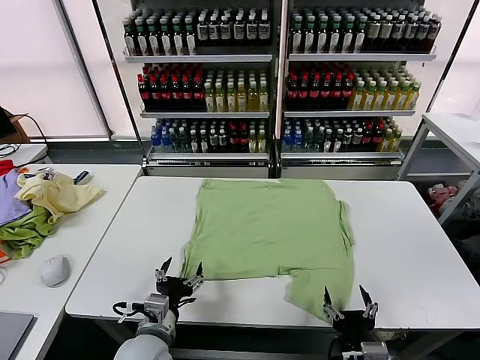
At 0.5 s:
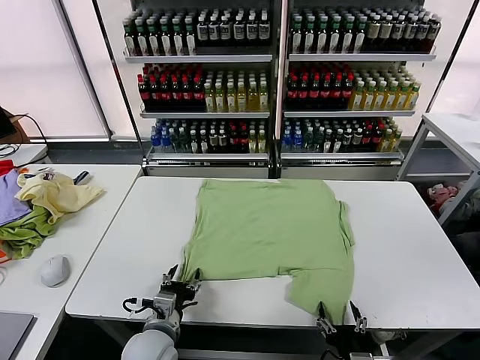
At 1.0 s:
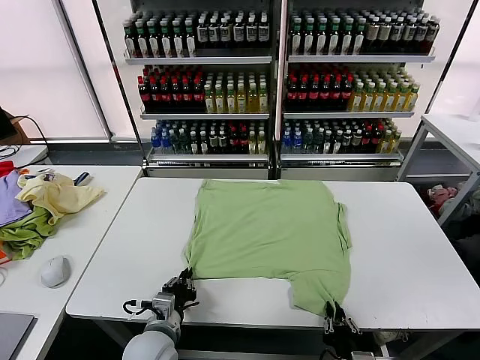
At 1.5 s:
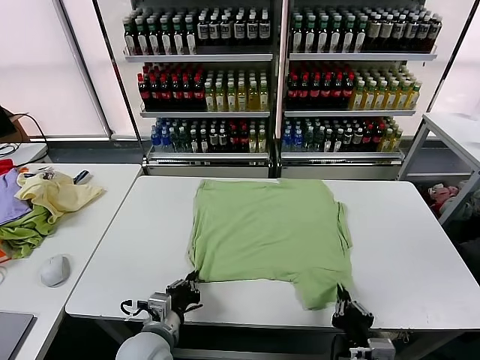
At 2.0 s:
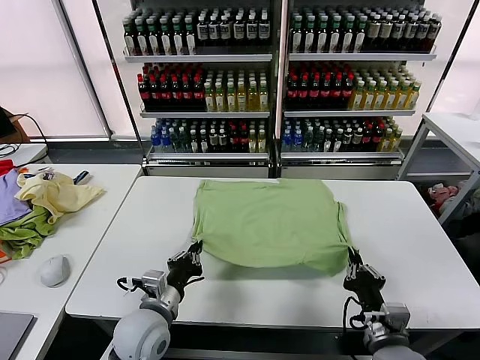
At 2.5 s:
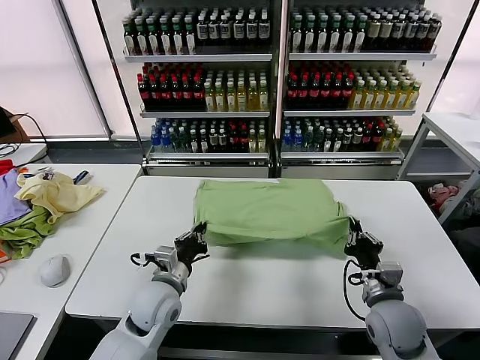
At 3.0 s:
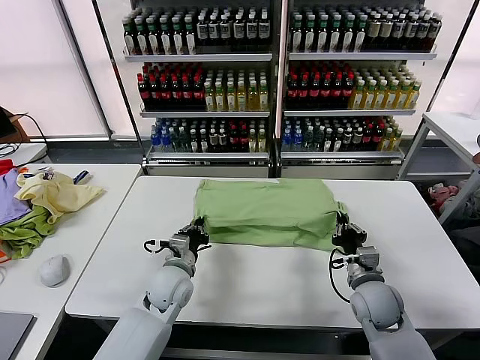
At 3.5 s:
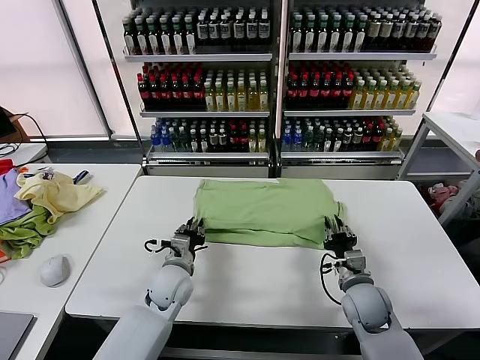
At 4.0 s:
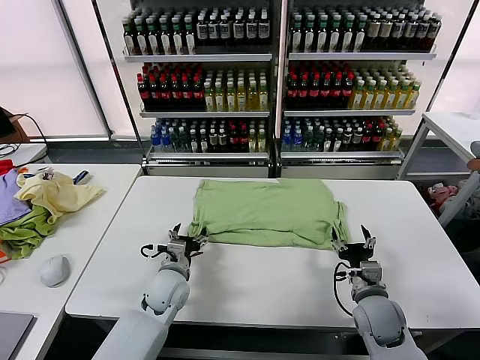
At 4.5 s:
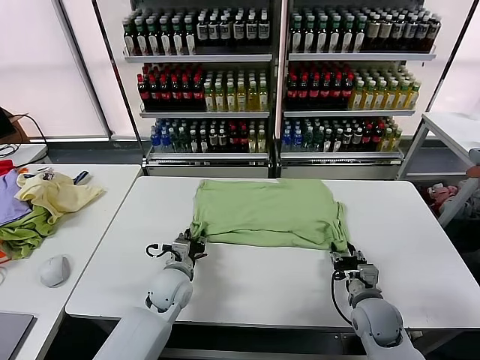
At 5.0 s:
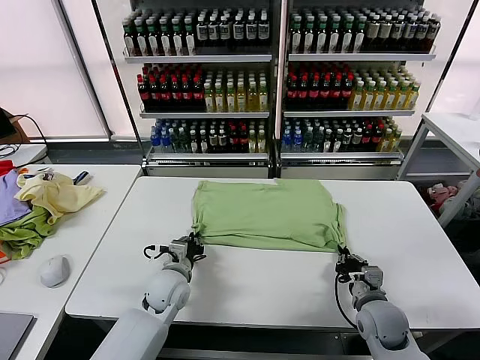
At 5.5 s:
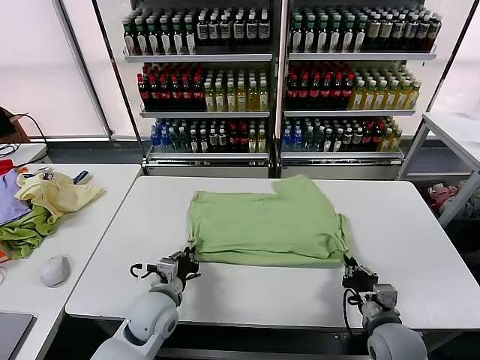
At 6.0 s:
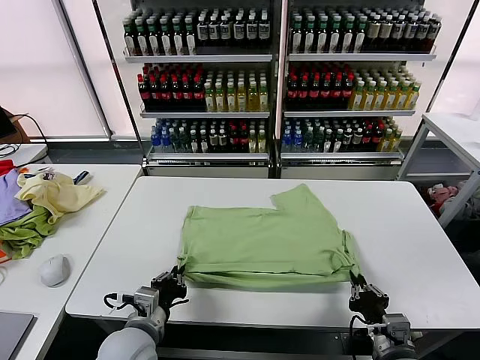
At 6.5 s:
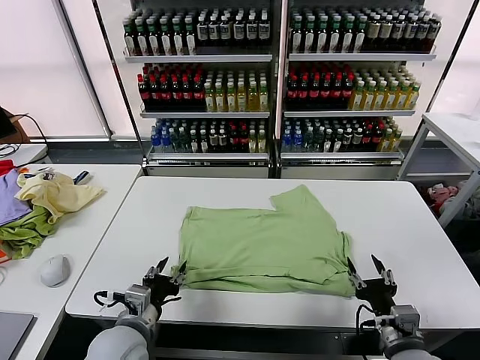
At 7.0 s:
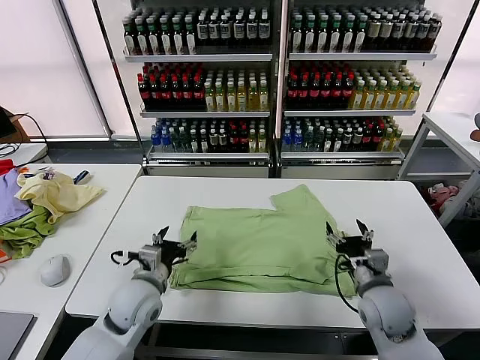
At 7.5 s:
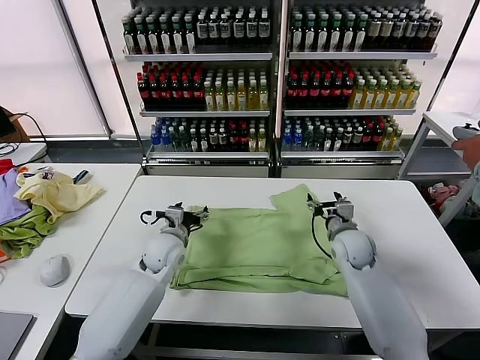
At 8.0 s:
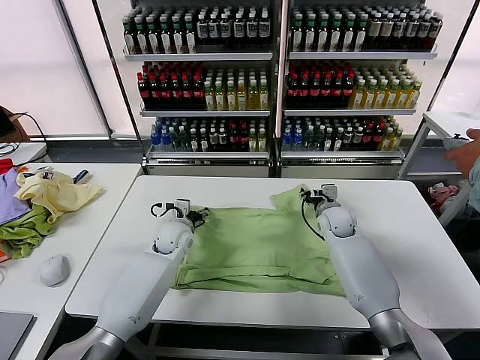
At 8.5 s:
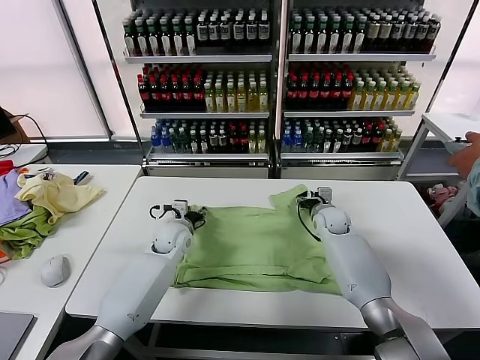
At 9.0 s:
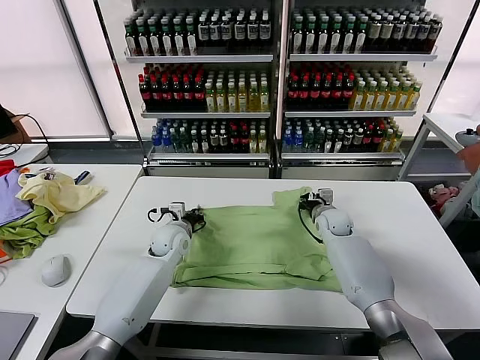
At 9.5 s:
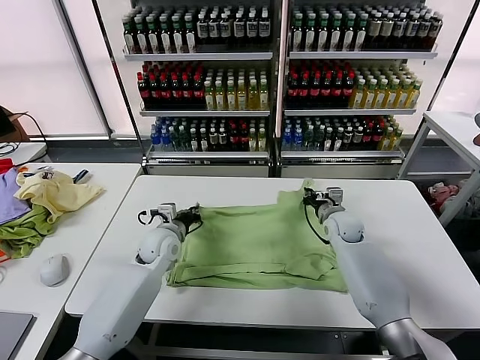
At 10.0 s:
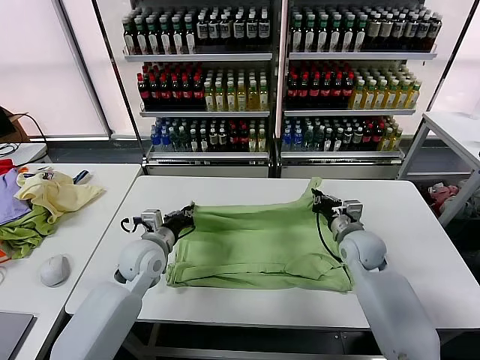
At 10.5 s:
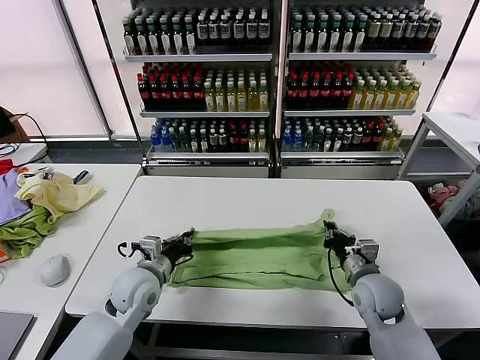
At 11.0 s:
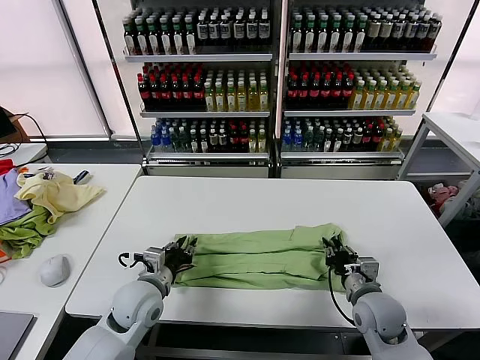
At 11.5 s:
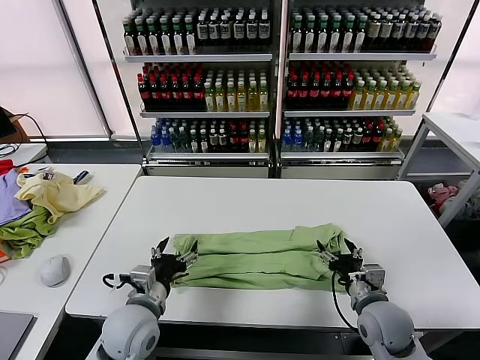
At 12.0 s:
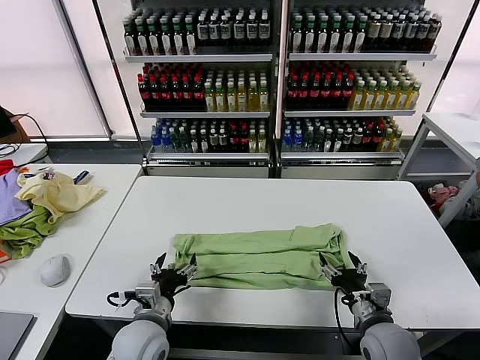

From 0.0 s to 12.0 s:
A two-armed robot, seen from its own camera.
Task of the whole recording: fold and organize the clothes.
Step, from 0.0 s to 1.0 s: use both grippers simultaneously to clamp the lower edge of the clothing fabric.
Step, from 1.5 s to 3.5 s: use both grippers to drag the lower edge of the fabric forward and fold it over the upper edge.
Step, from 4.0 s to 6.0 s: Drag the clothes downward with both gripper.
Step, from 7.0 s to 9.0 s: use both grippers simultaneously to clamp the upper edge of the clothing fabric.
Step, from 9.5 s to 11.0 s: use both grippers to drag the upper edge of the fabric backward and fold it over the lower edge.
From 2.0 s to 4.0 s: Both grippers move forward and downward, some 10 cm. The left gripper opens its fingers. The right gripper opens its fingers.
From 4.0 s to 6.0 s: The grippers both shift backward by roughly 15 cm. The left gripper closes. Meanwhile the right gripper closes up.
From 6.0 s to 8.0 s: Both grippers travel together forward, approximately 35 cm. The left gripper opens its fingers. The right gripper opens.
From 8.0 s to 10.0 s: The two grippers go approximately 10 cm backward. The right gripper closes; the left gripper closes its fingers.
From 10.0 s to 12.0 s: The two grippers go roughly 15 cm backward. The right gripper opens up, while the left gripper opens its fingers.

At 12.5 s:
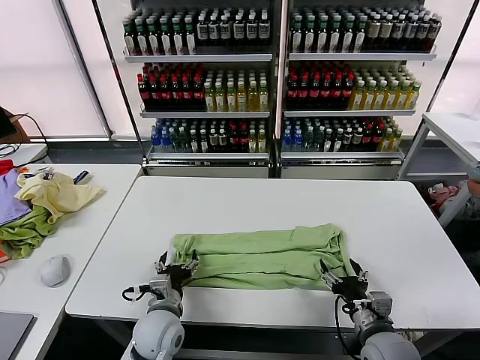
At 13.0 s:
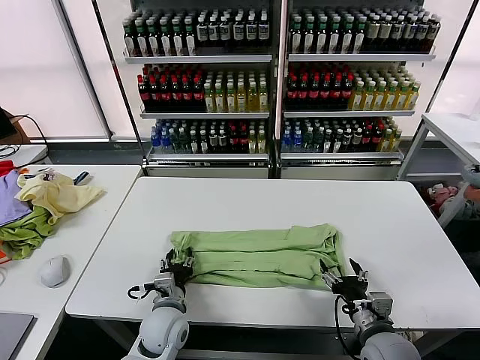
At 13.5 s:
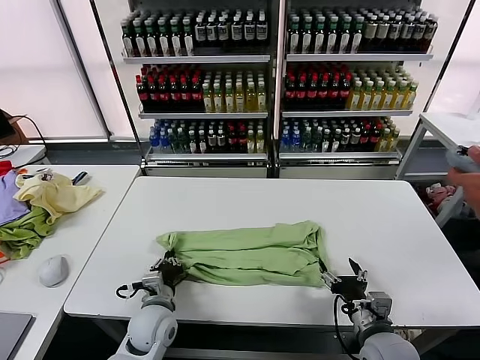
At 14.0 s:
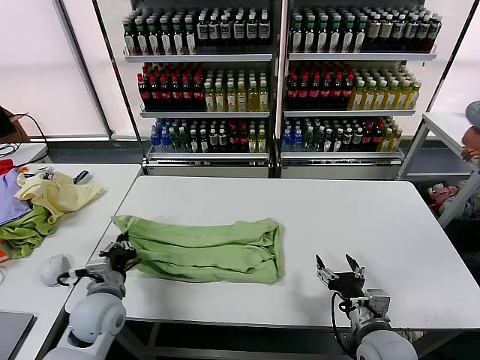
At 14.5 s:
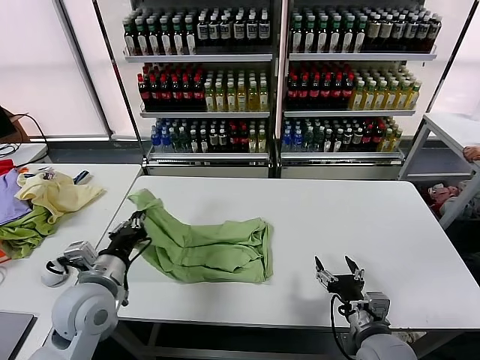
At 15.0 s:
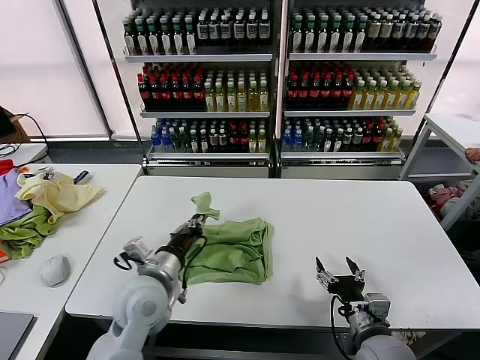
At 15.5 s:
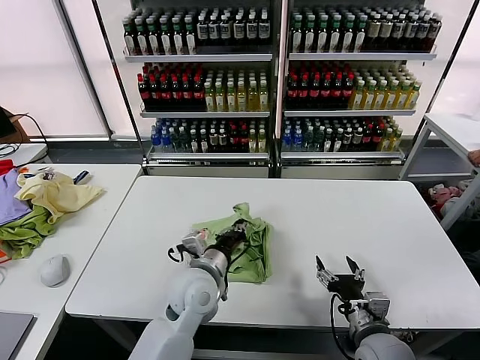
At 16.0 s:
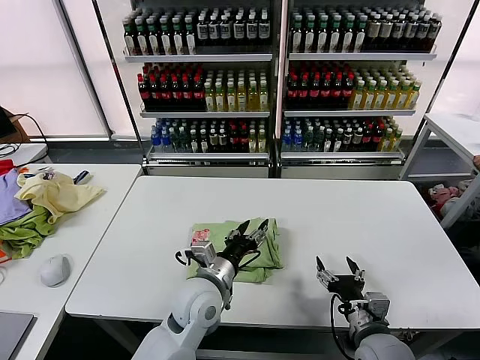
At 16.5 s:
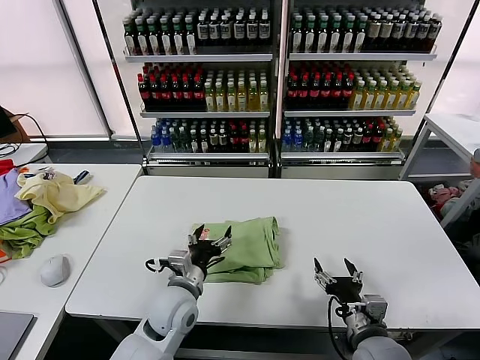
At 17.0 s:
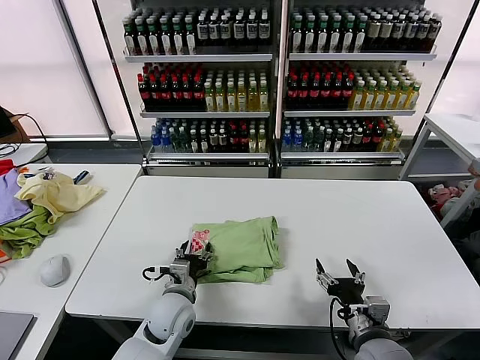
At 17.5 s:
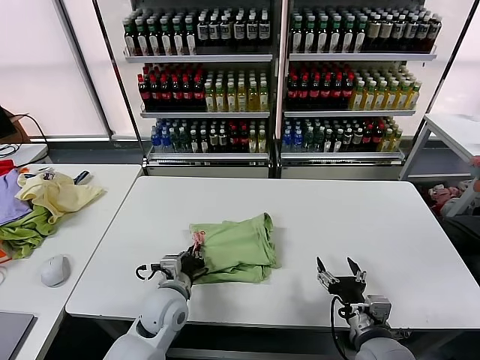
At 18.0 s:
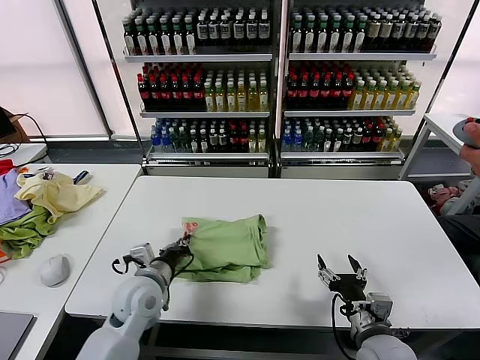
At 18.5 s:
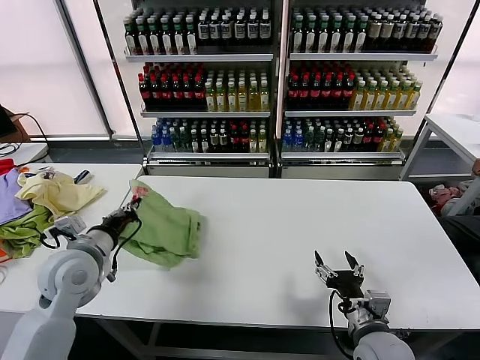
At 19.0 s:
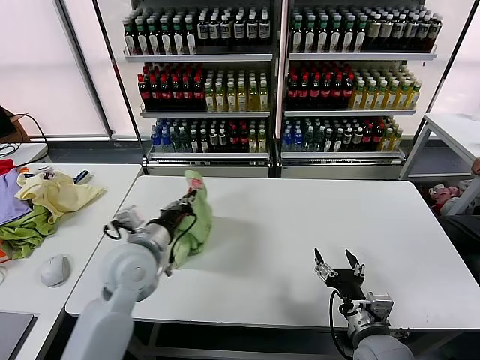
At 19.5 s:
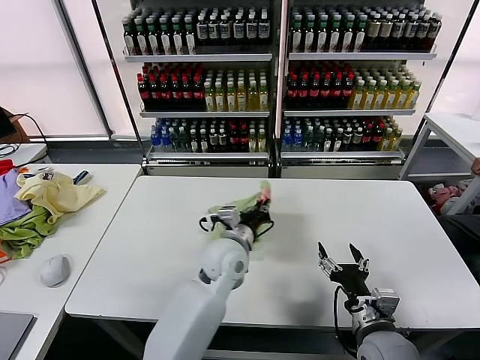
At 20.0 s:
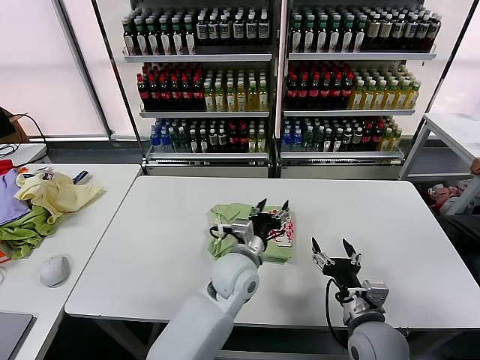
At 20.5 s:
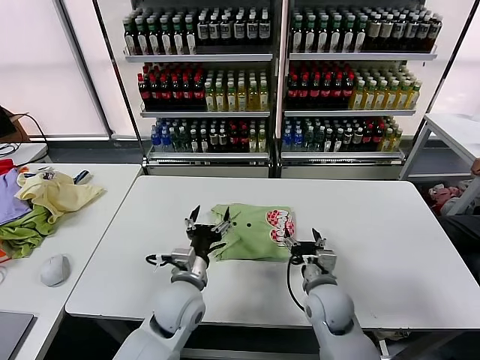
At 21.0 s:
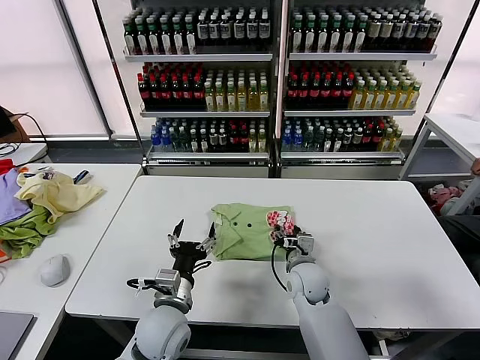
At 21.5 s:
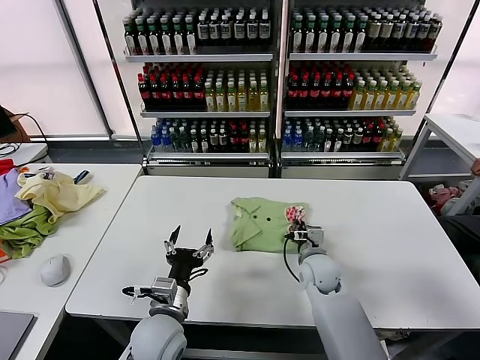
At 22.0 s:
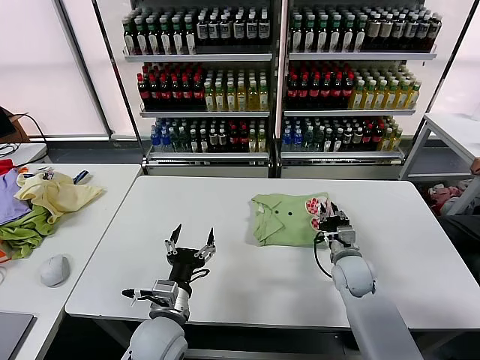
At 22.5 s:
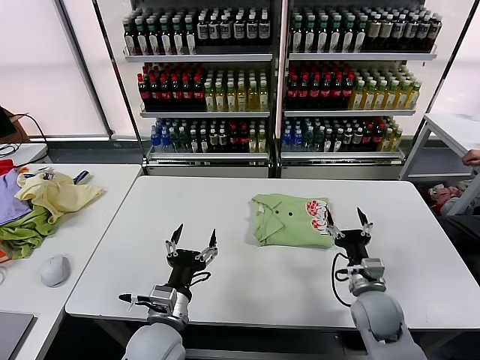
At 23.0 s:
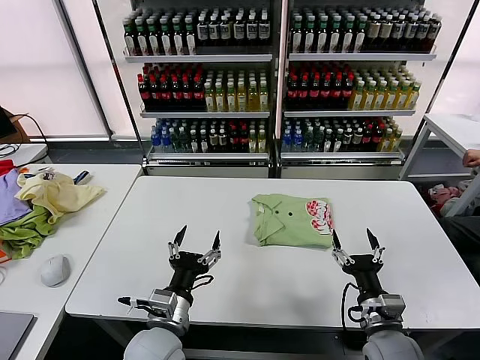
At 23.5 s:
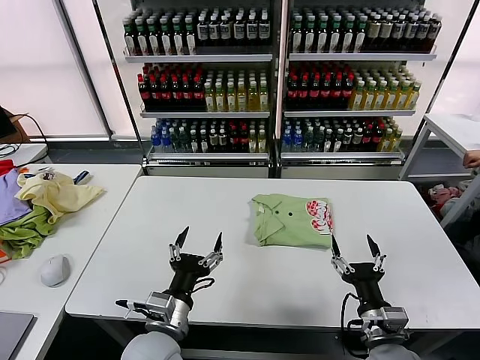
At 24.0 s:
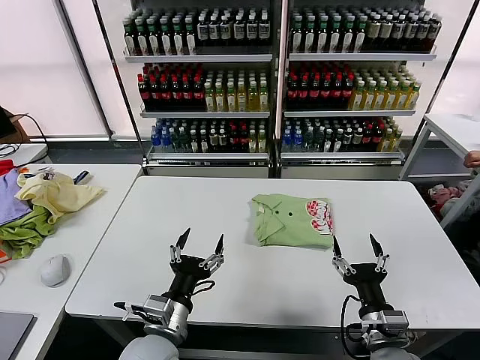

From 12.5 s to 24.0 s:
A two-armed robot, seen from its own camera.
Task of the whole recording: fold and organize the clothes.
Step, from 13.5 s to 15.5 s: use the left gripper to drag the left edge of the fabric to the left and folds it over the right edge.
Step, from 16.0 s to 19.5 s: Flip the folded clothes over with left gripper.
Step, from 20.0 s to 22.0 s: Drag the clothes to the center of the table.
From 12.5 s to 14.5 s: The left gripper is displaced upward and to the left by about 15 cm, and closes.
From 14.5 s to 16.5 s: The left gripper goes roughly 15 cm to the right and downward, and opens up.
From 16.5 s to 18.5 s: The left gripper shifts roughly 20 cm to the left and upward, and closes up.
From 18.5 s to 20.0 s: The left gripper moves to the right, some 30 cm, and opens.
From 20.0 s to 22.0 s: The right gripper shifts roughly 20 cm forward, and closes its fingers, while the left gripper goes some 20 cm to the left and backward.
From 22.0 s to 24.0 s: The left gripper shifts by roughly 5 cm; the right gripper moves backward, approximately 20 cm, and opens its fingers.
